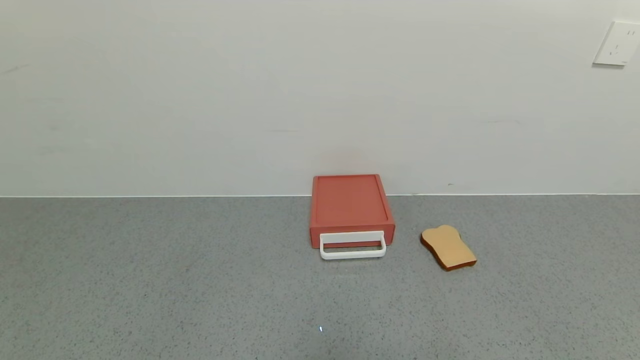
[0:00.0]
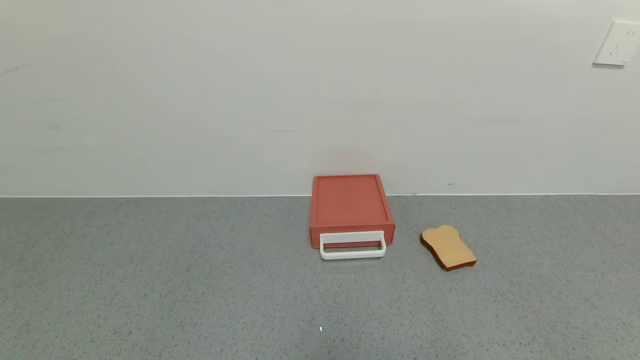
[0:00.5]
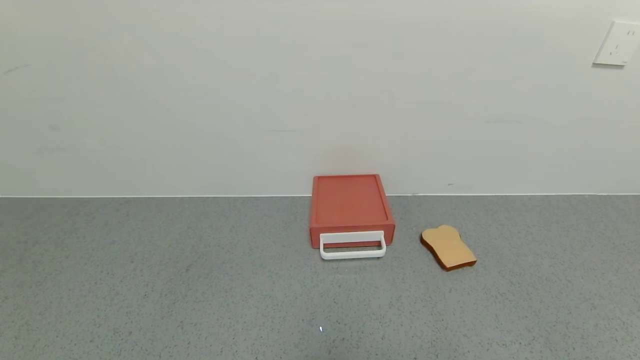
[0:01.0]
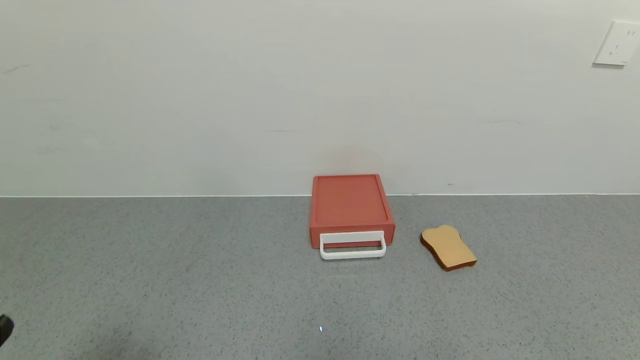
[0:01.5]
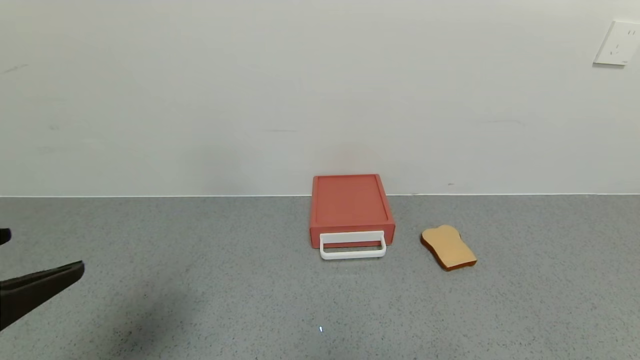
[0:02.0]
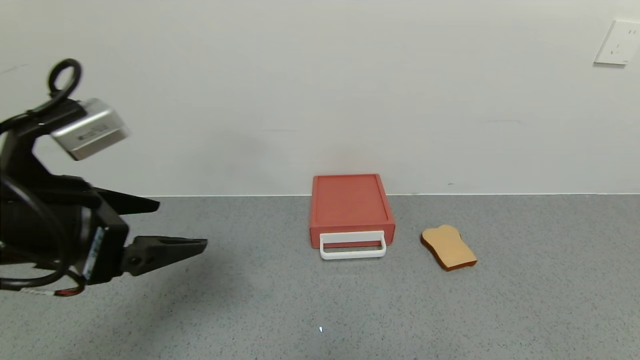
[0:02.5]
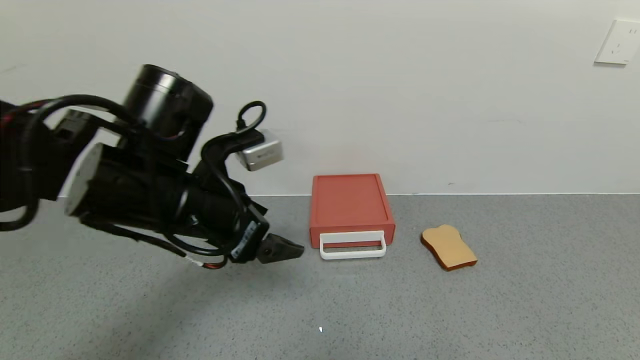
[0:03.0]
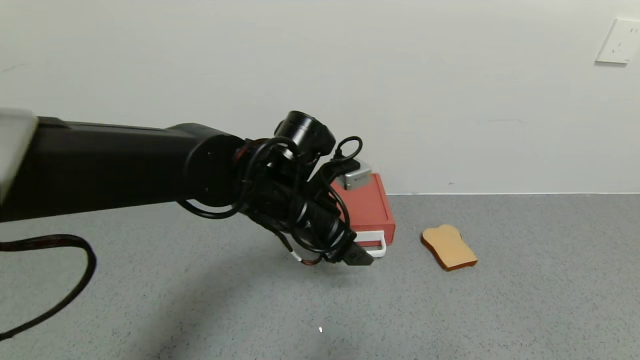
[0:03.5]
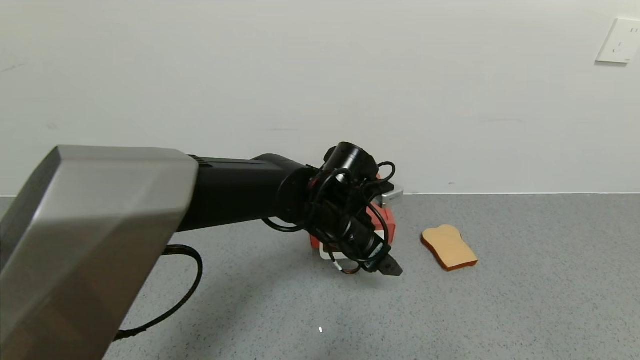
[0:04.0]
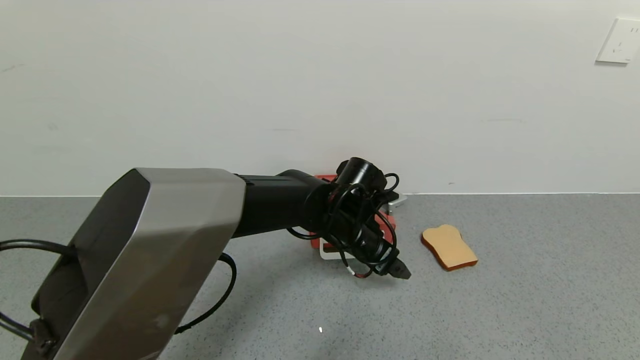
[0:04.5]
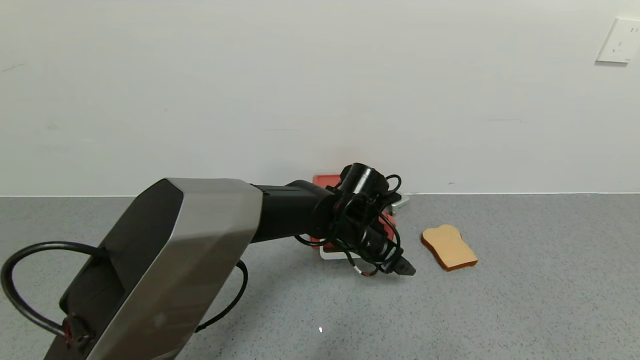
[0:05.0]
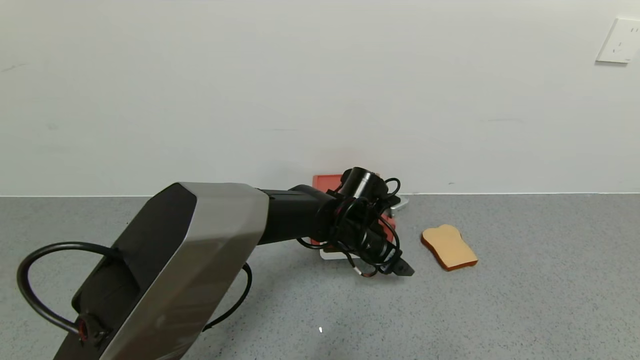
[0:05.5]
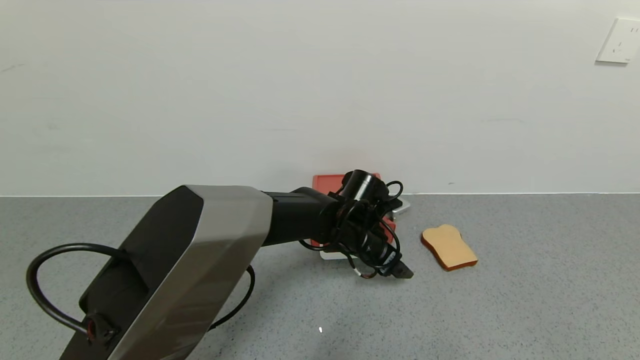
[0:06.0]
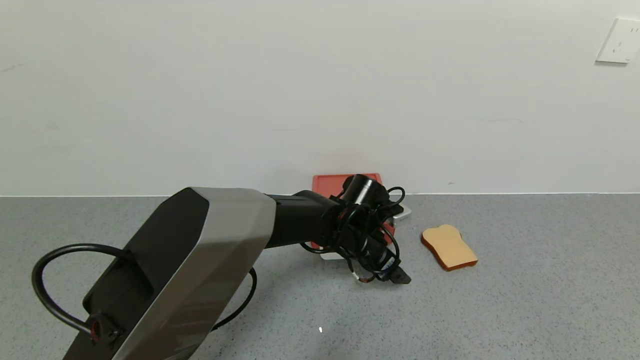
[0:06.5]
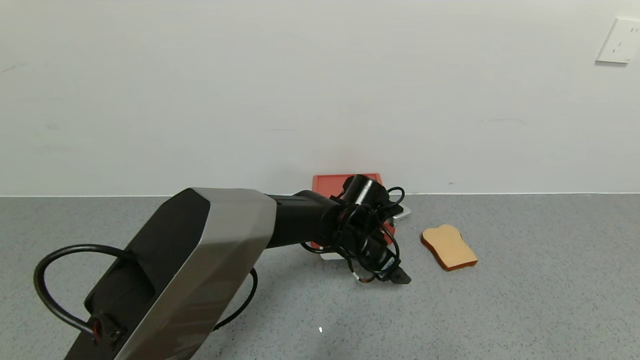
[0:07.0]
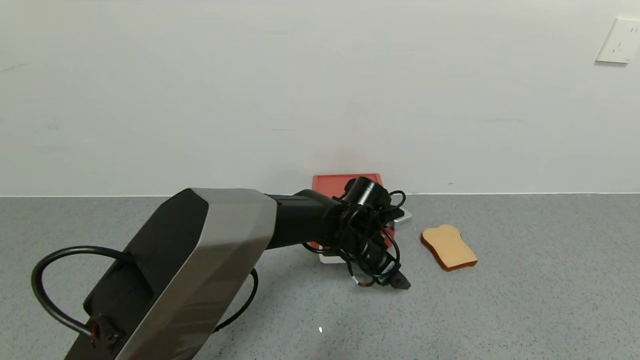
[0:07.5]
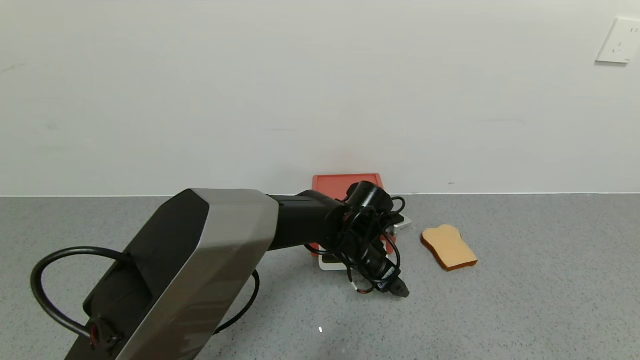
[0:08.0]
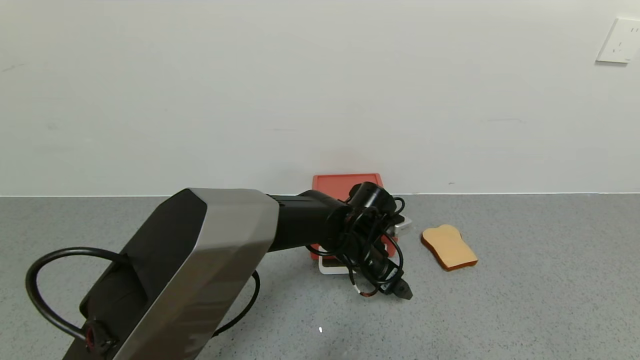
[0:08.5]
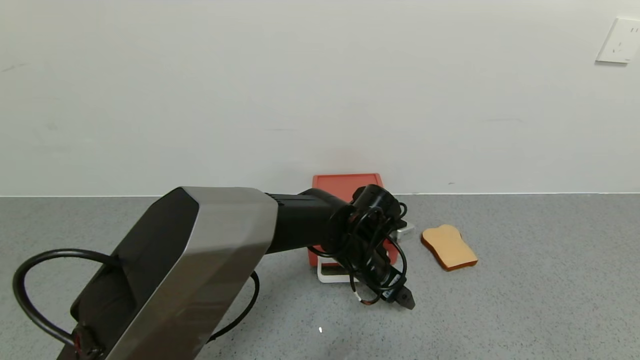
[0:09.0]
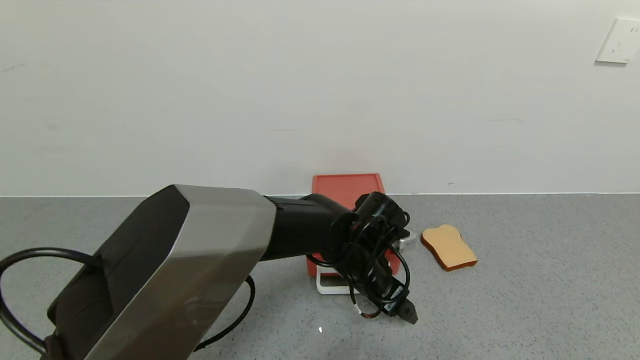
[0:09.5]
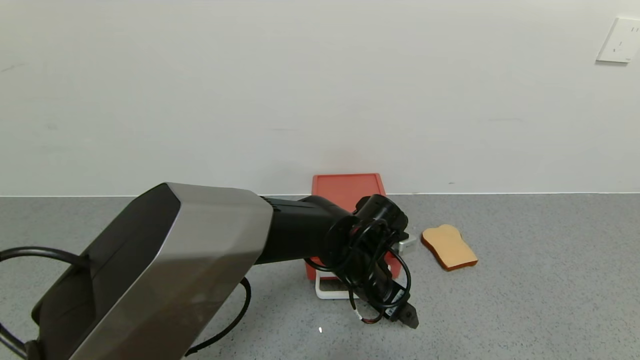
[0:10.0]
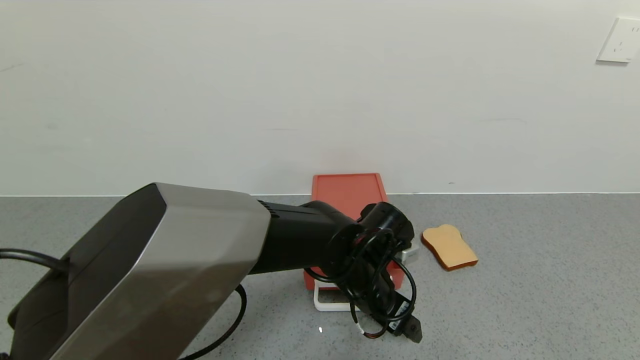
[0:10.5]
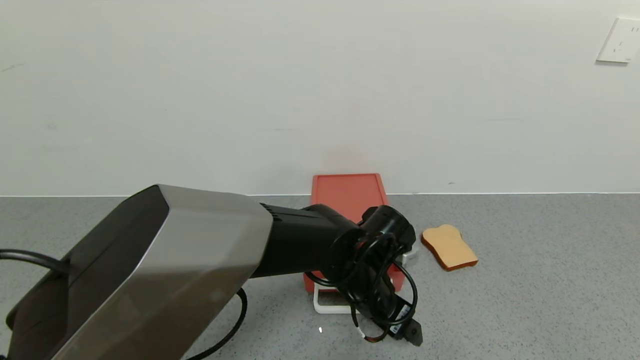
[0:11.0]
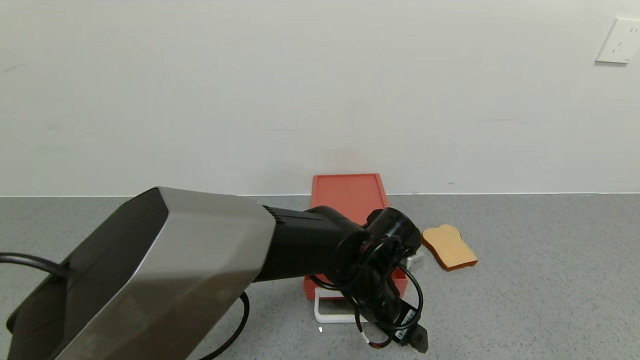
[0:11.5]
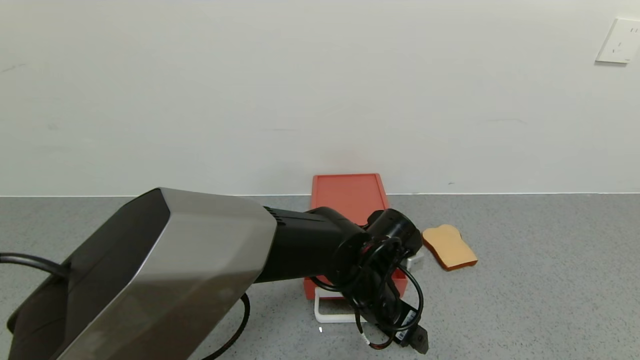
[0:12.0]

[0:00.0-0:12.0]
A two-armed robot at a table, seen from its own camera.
Task of the whole recording: use the gripper to open the drawer and close the red drawer.
0:00.0 to 0:02.0: The left gripper is displaced upward and forward by approximately 25 cm.
0:02.0 to 0:04.0: The left gripper moves to the right, forward and downward, some 40 cm.
0:04.0 to 0:06.0: The left gripper moves downward, approximately 5 cm.
0:06.0 to 0:08.0: The grippers stay close to where they were, moving slightly.
0:08.0 to 0:10.0: The left gripper goes roughly 5 cm backward.
0:10.0 to 0:12.0: There are only small adjustments of the grippers.

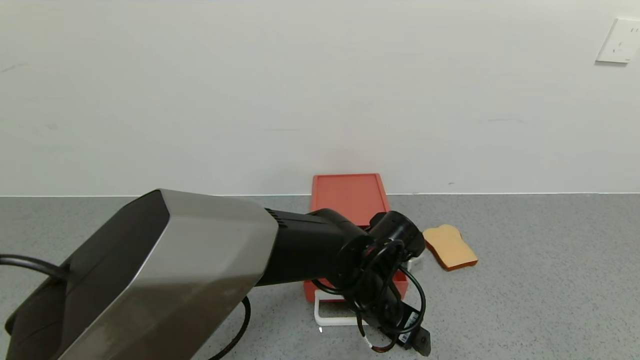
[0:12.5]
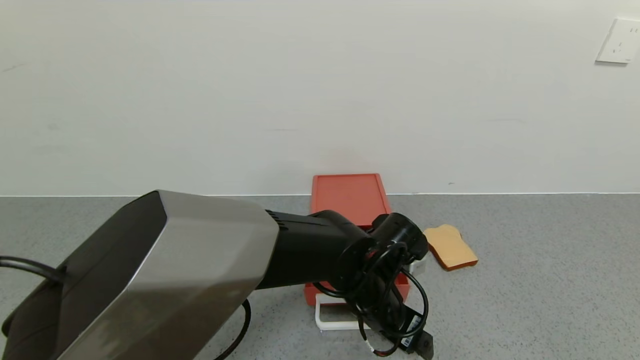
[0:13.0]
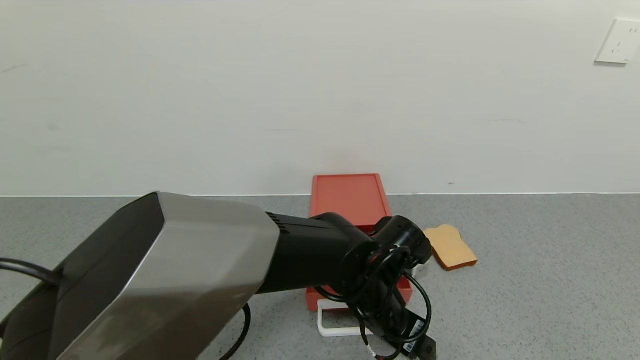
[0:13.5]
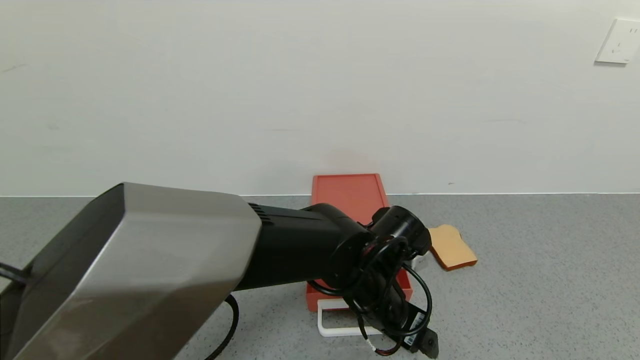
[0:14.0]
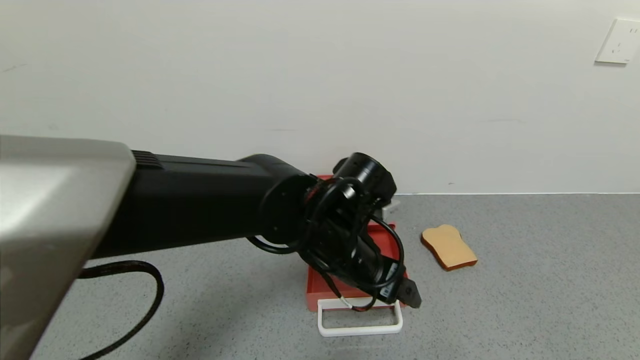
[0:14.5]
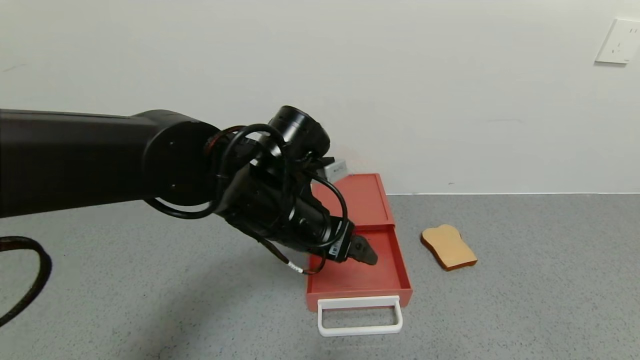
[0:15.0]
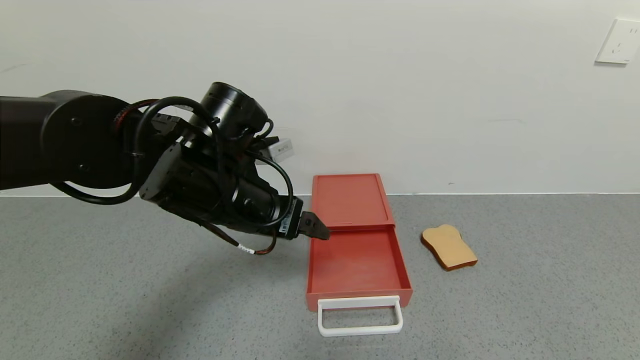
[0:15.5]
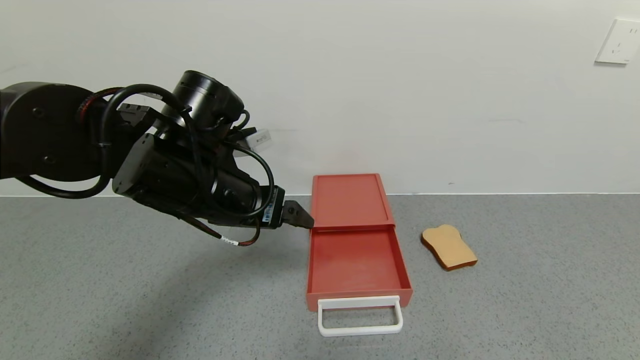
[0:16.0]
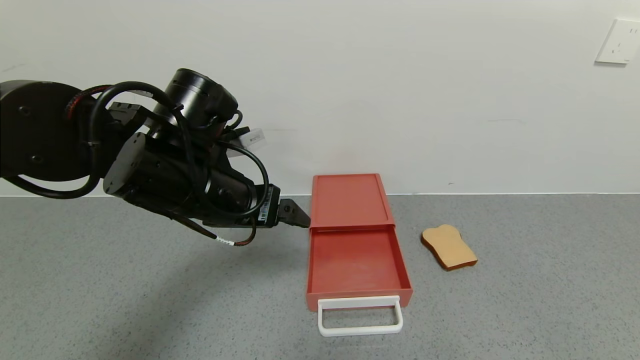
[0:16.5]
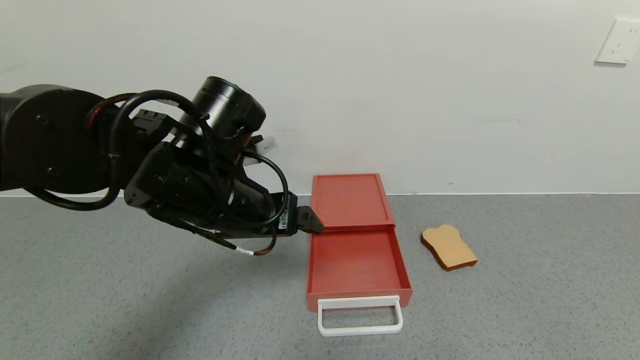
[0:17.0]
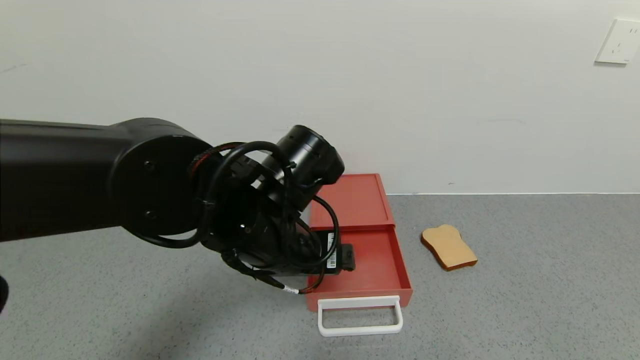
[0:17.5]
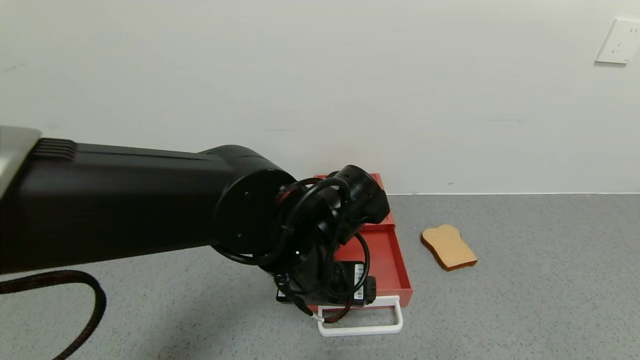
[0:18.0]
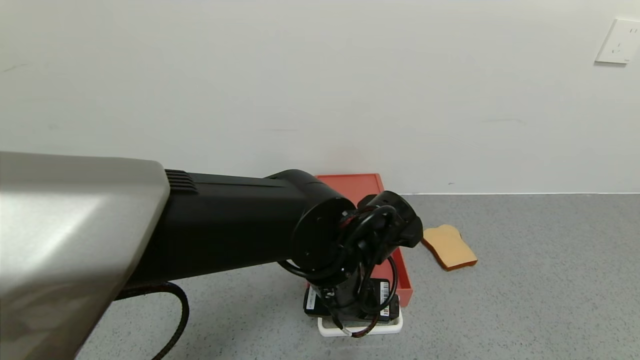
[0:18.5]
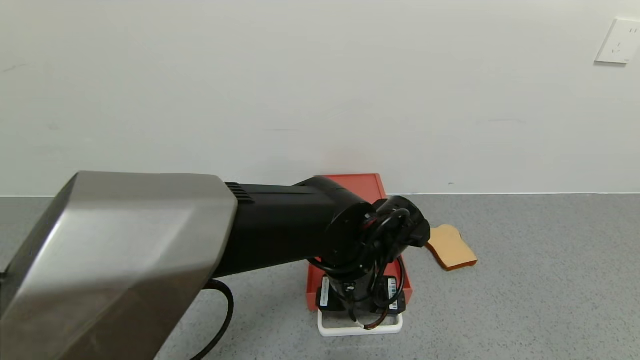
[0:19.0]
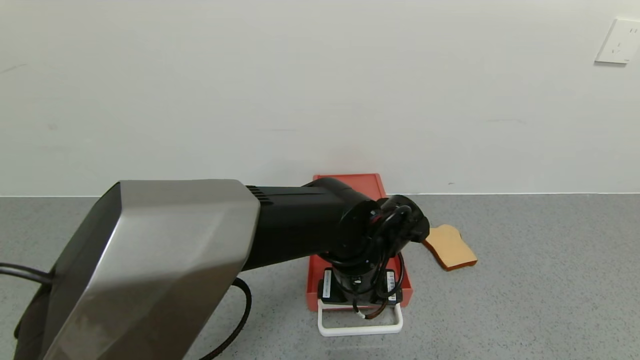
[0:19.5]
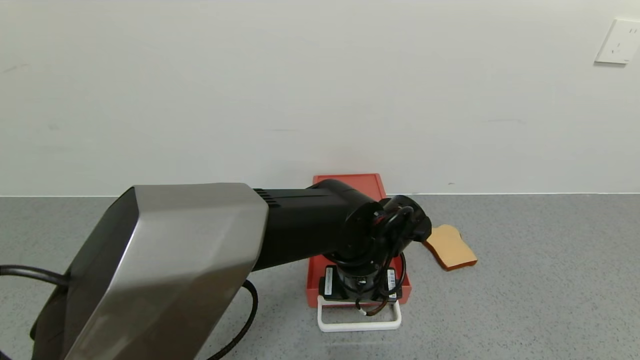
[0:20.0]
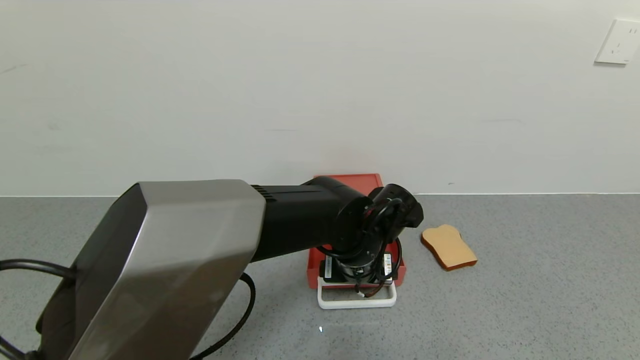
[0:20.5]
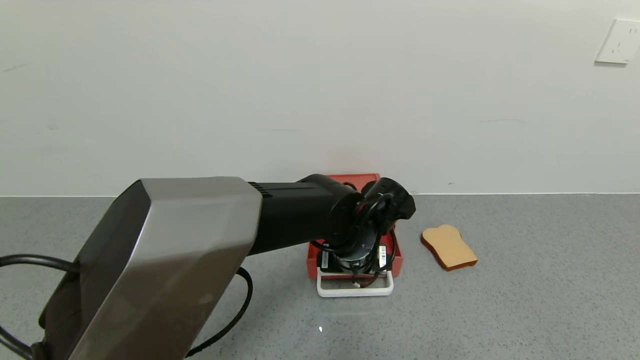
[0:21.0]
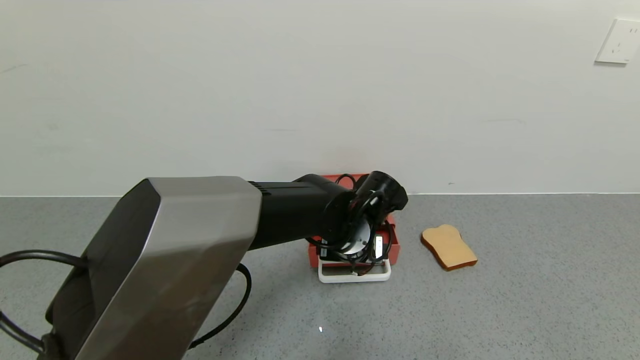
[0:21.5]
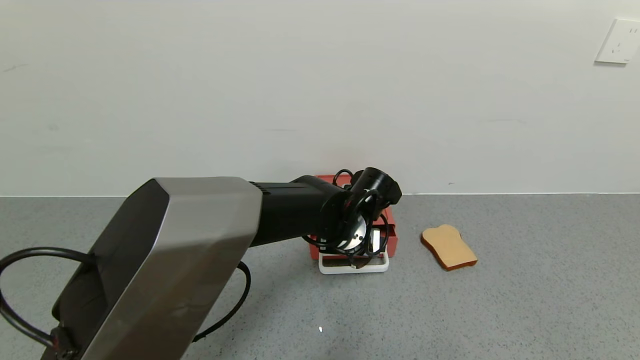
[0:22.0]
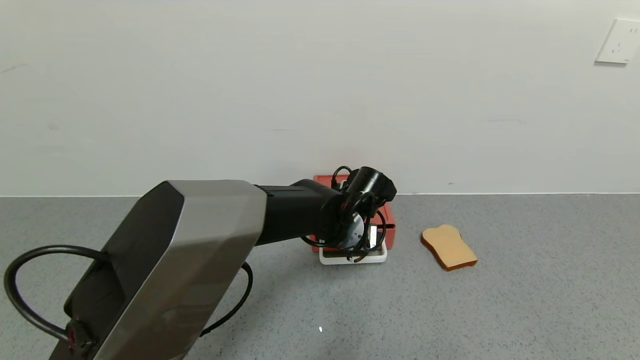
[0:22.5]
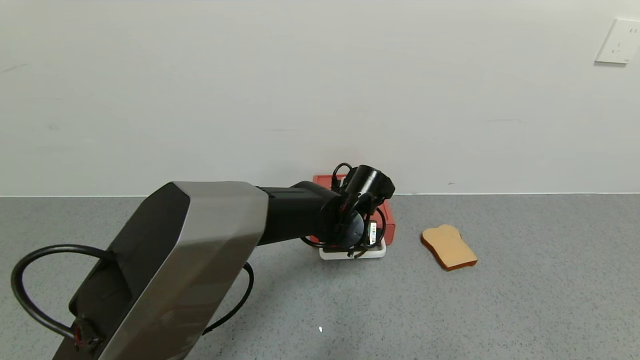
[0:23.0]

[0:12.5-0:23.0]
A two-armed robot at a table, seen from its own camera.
Task of the whole recording: use the gripper to open the drawer and close the red drawer.
Step, 0:12.5 to 0:14.5: Open the red drawer with the left gripper.
0:12.5 to 0:14.5: The left gripper moves upward, roughly 10 cm.
0:14.5 to 0:16.5: The left gripper is displaced to the left and upward by roughly 15 cm.
0:16.5 to 0:19.0: The left gripper travels to the right and downward by about 20 cm.
0:19.0 to 0:21.0: The left gripper travels forward by about 5 cm.
0:21.0 to 0:23.0: The left gripper is displaced forward by approximately 5 cm.
